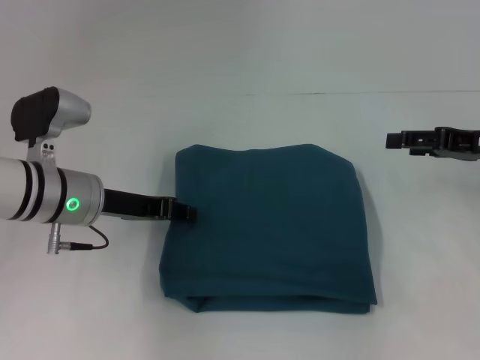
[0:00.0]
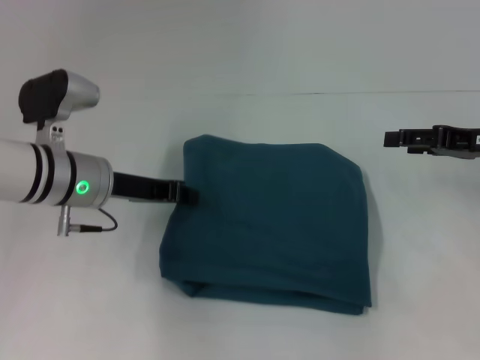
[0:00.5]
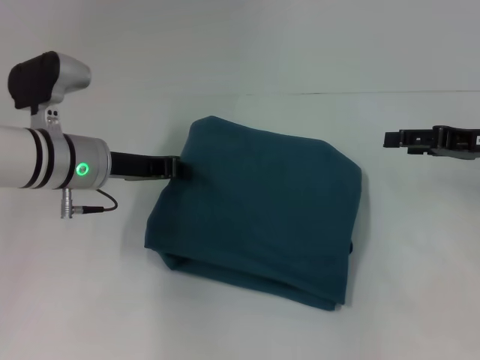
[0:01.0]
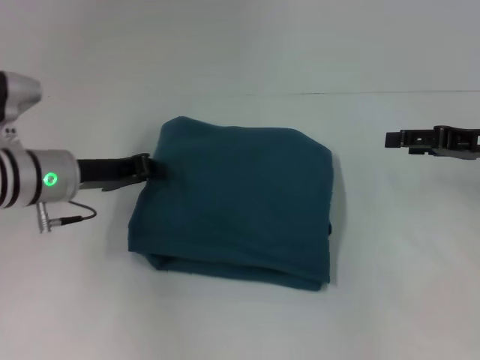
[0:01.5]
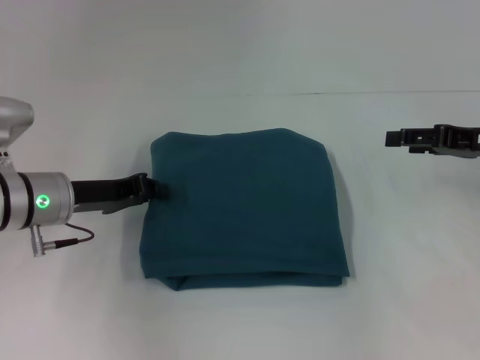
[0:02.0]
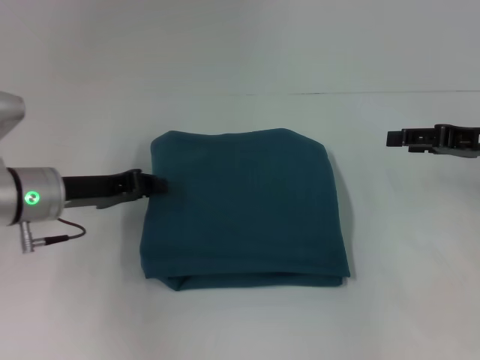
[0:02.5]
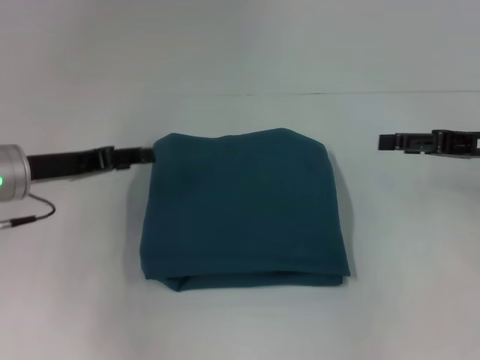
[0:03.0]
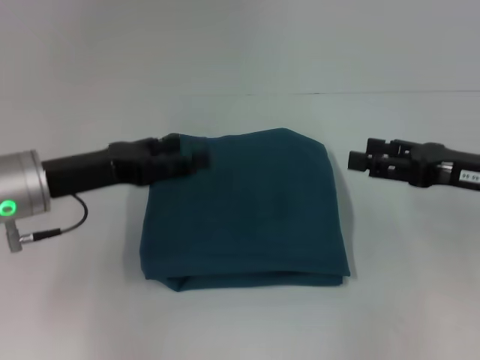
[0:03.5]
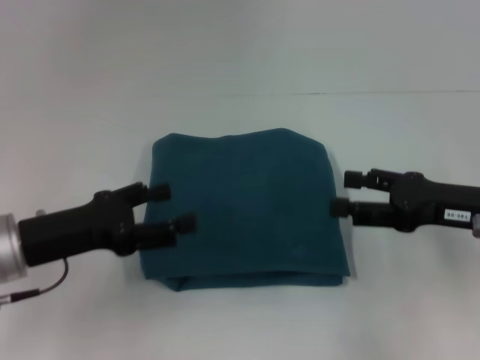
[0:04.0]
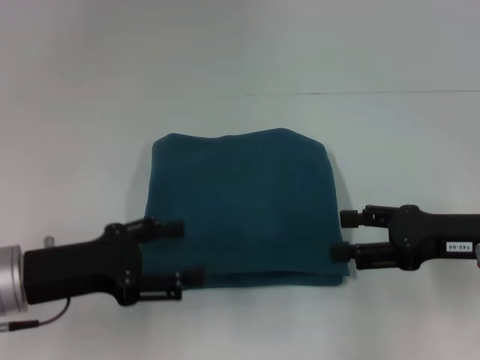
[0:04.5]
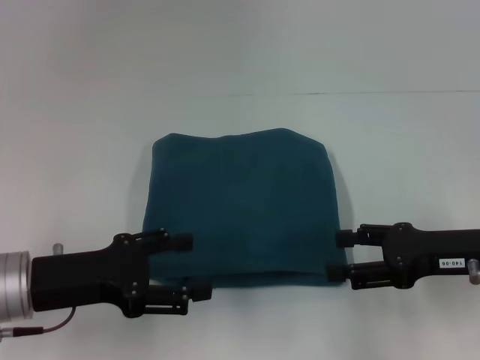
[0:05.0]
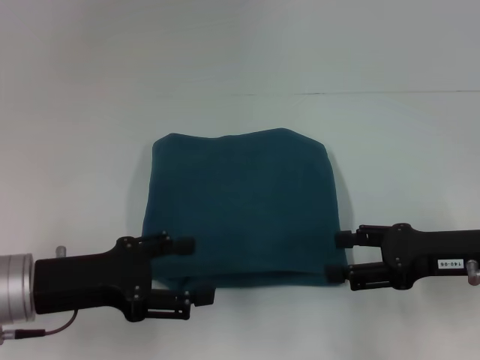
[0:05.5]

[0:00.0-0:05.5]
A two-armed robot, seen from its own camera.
0:00.0 to 0:02.0: There are only small adjustments of the grippers.
0:02.0 to 0:03.5: The left gripper ends up some 5 cm from where it was, and opens its fingers. The right gripper ends up roughly 5 cm from where it was.
0:03.5 to 0:05.5: The right gripper shifts by about 5 cm. Meanwhile the left gripper heads backward, covering approximately 5 cm.

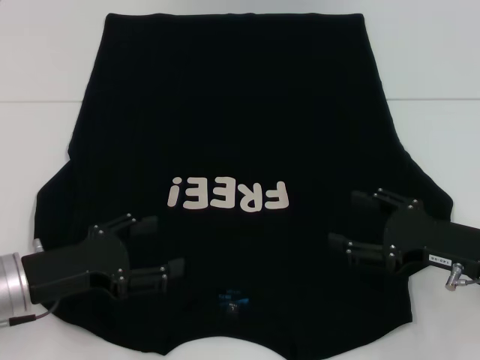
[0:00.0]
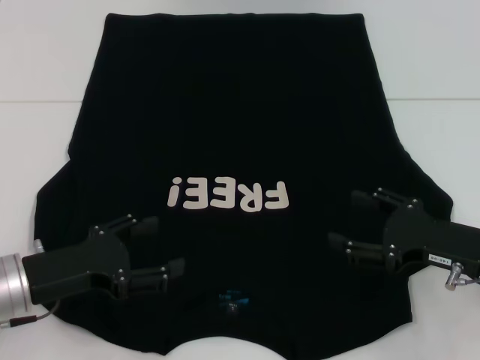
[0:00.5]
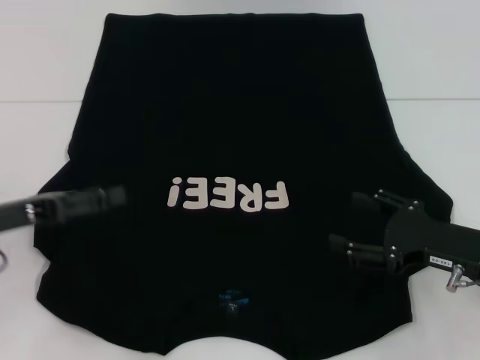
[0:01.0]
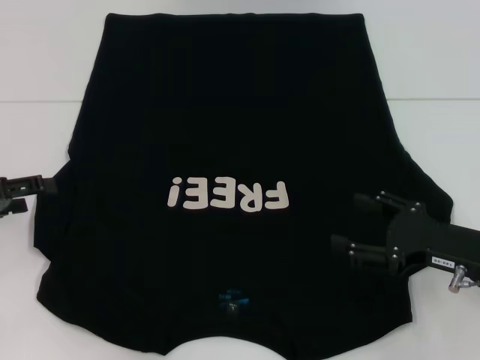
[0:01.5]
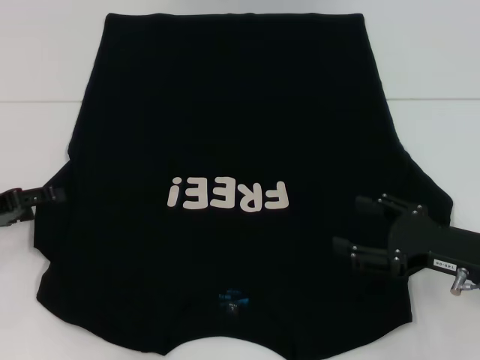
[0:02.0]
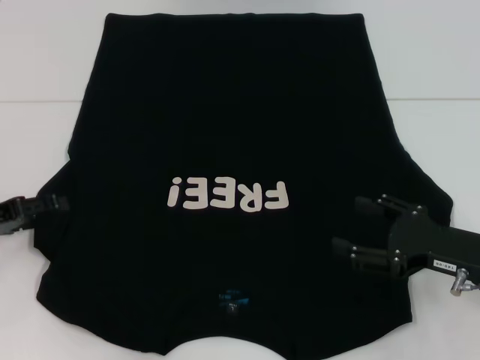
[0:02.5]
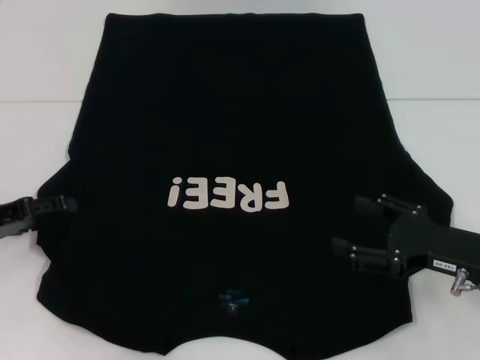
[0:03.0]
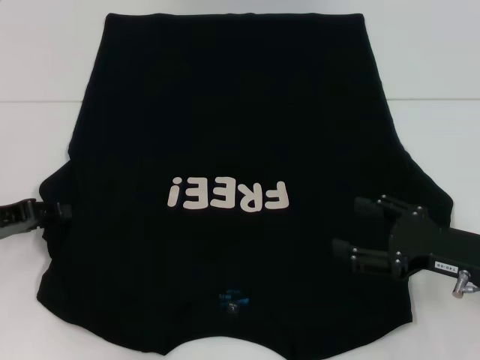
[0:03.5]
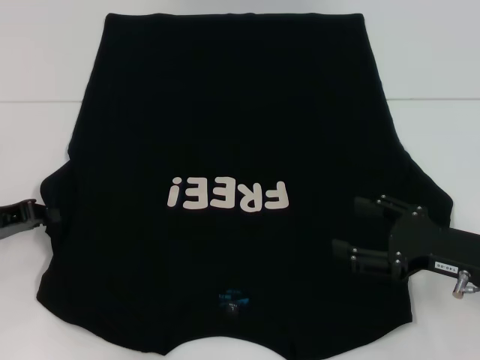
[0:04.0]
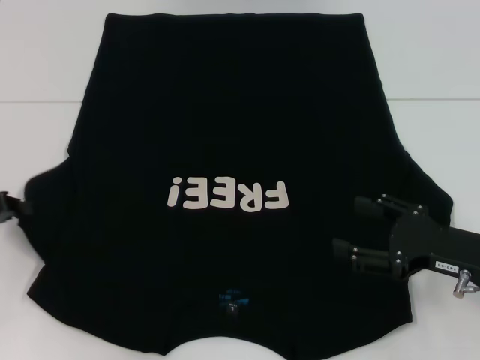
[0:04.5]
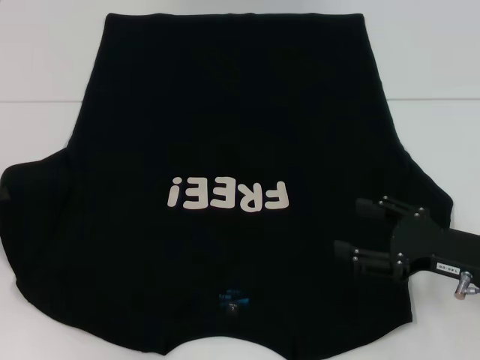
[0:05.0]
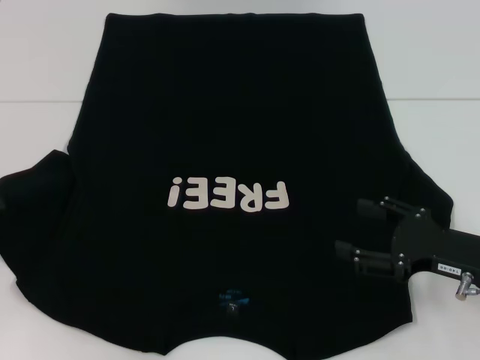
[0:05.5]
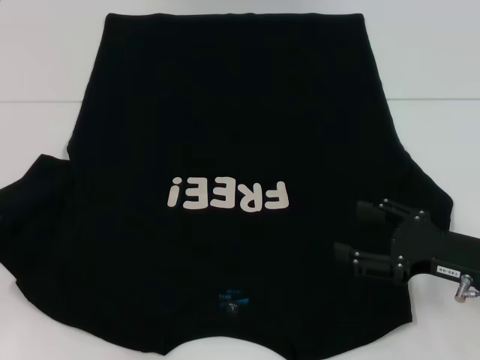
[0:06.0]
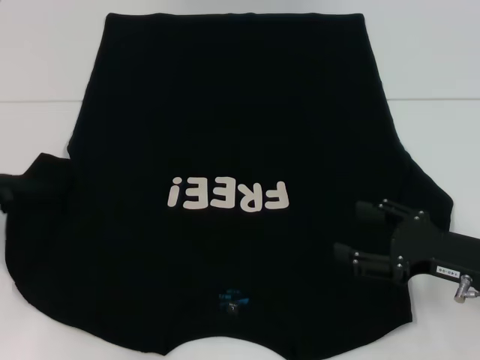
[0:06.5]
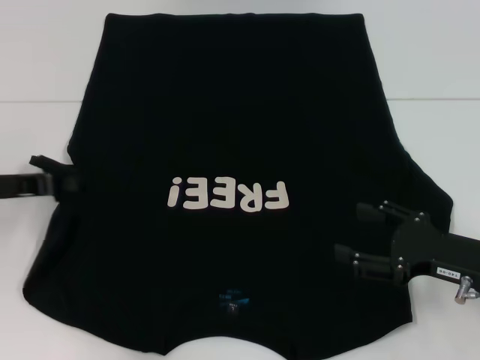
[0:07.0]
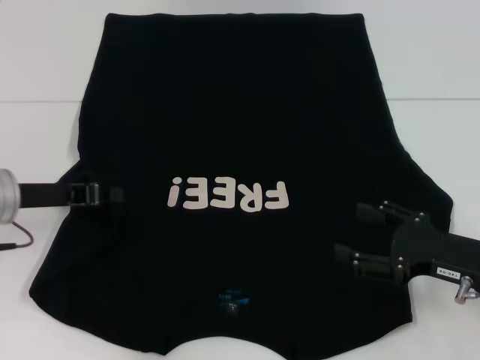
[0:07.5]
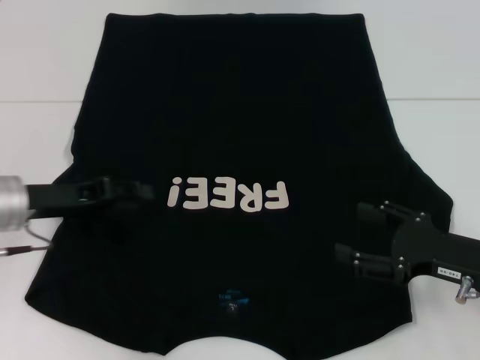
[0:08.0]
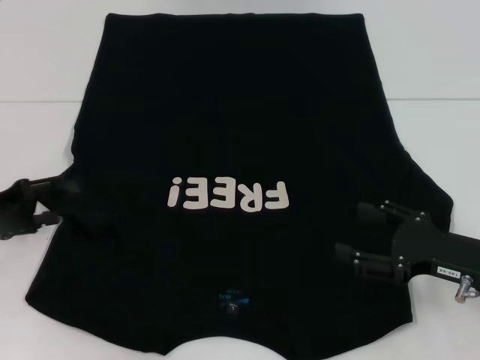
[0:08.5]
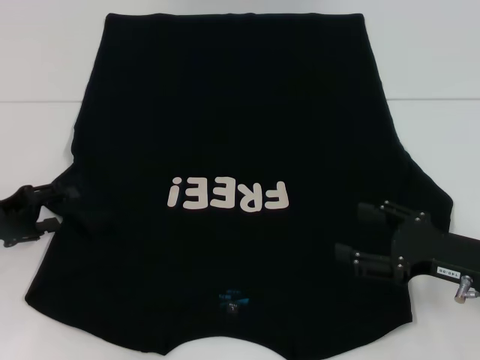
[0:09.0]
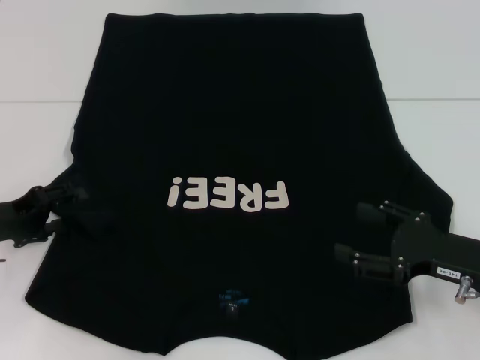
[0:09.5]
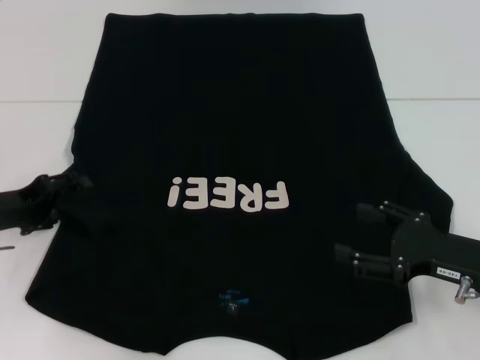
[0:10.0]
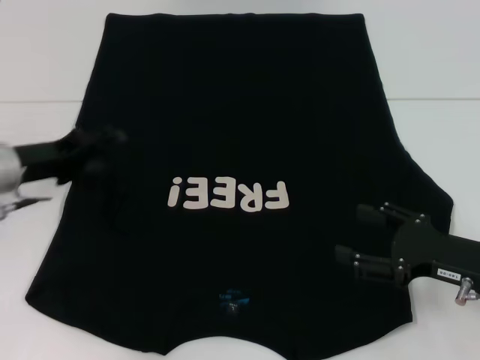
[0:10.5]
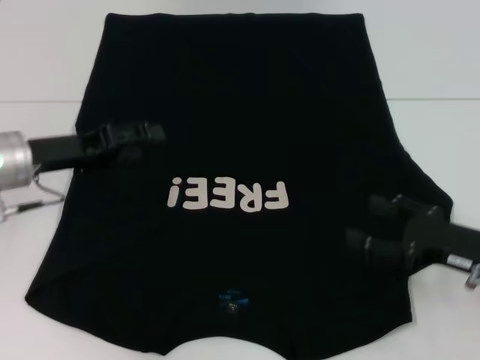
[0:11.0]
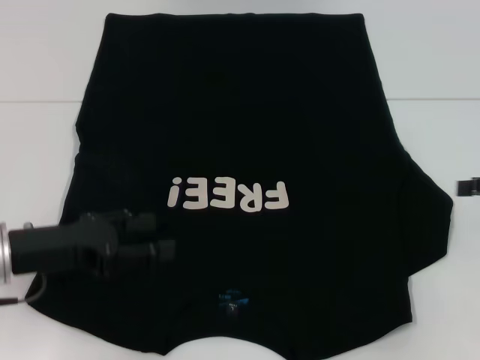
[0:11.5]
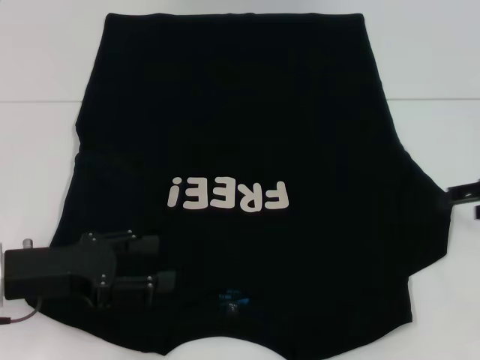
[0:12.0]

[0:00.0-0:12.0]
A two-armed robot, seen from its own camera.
Step, 0:00.0 to 0:11.0: Fold the bottom left sleeve with your left hand.
0:00.0 to 0:02.0: The left gripper moves to the left and forward, some 10 cm.
0:02.0 to 0:04.0: The left gripper closes its fingers.
0:04.0 to 0:06.0: The left gripper moves roughly 5 cm.
0:06.0 to 0:08.0: The left gripper moves to the right, approximately 10 cm.
0:08.0 to 0:10.0: The left gripper travels to the left by approximately 5 cm, and opens.
0:10.0 to 0:12.0: The right gripper heads forward, upward and to the right, covering some 15 cm, while the left gripper travels backward and to the right by about 10 cm.

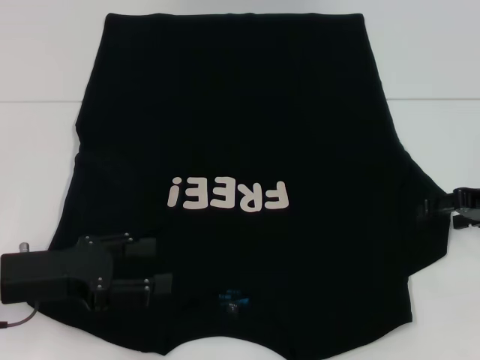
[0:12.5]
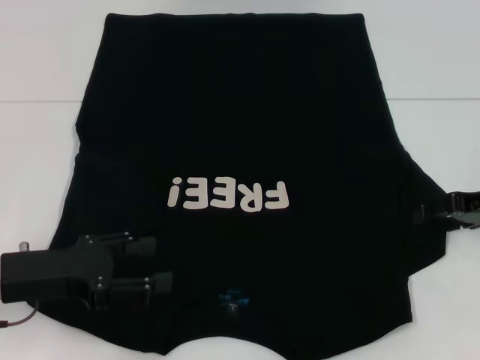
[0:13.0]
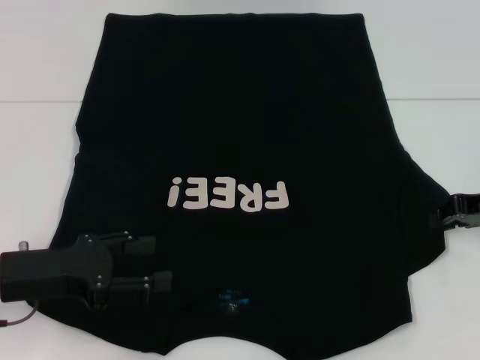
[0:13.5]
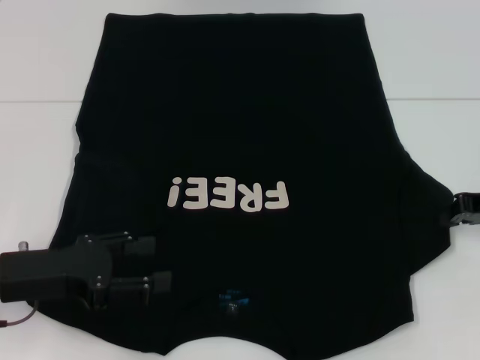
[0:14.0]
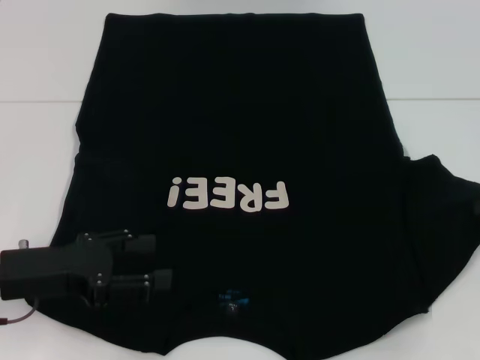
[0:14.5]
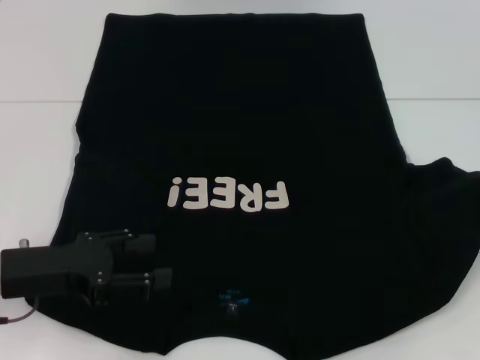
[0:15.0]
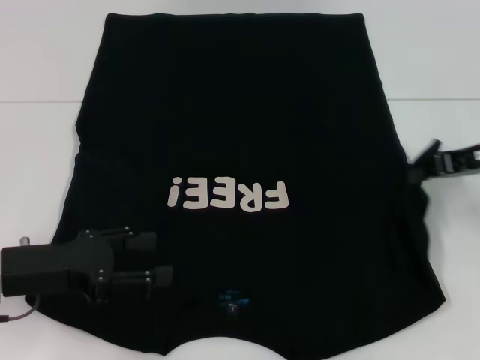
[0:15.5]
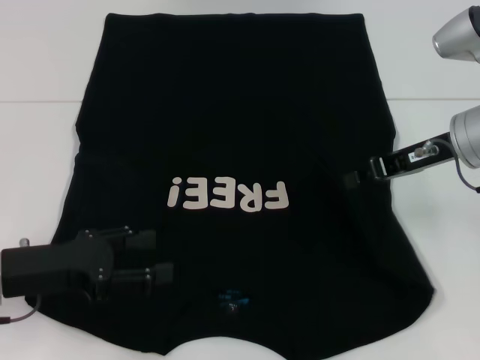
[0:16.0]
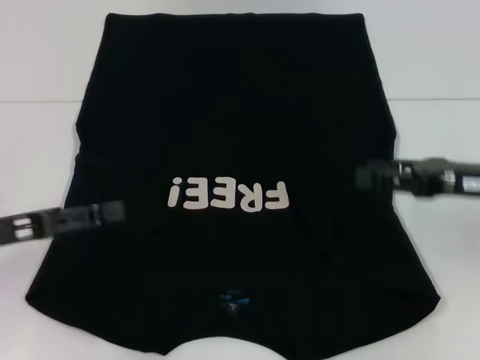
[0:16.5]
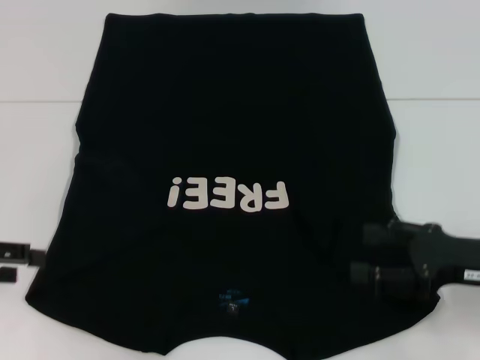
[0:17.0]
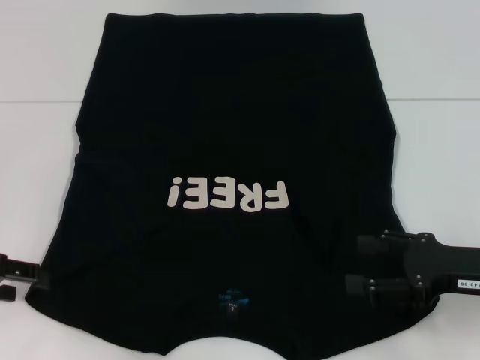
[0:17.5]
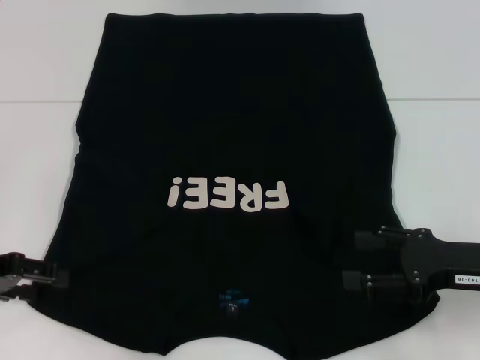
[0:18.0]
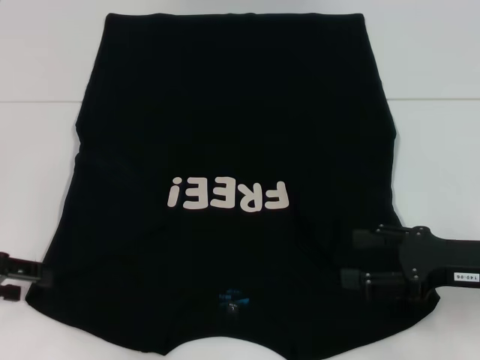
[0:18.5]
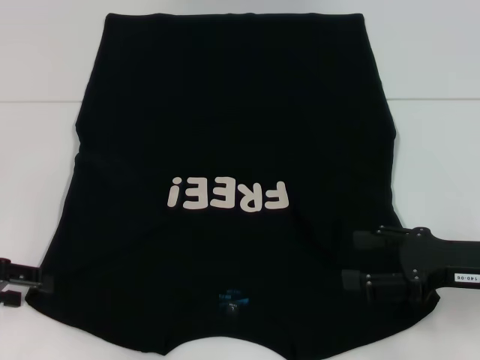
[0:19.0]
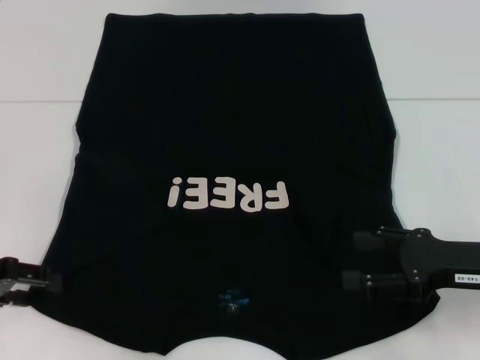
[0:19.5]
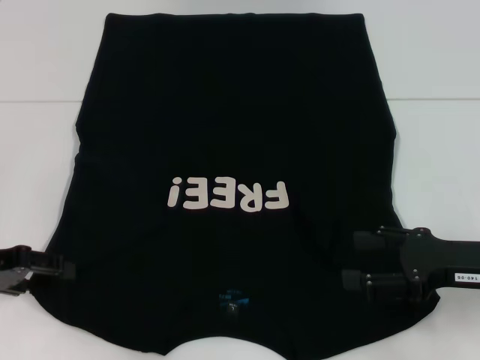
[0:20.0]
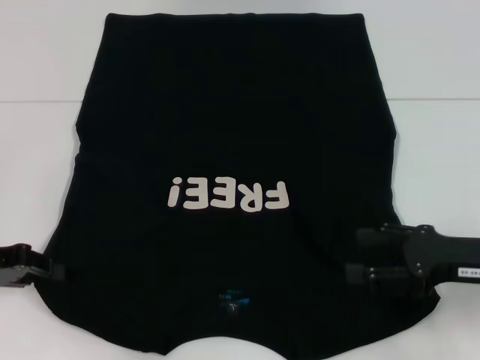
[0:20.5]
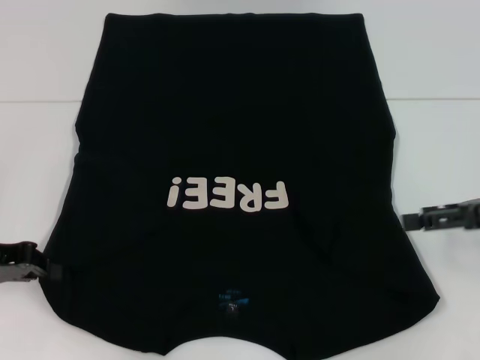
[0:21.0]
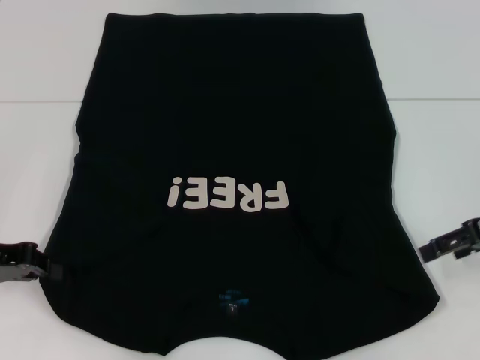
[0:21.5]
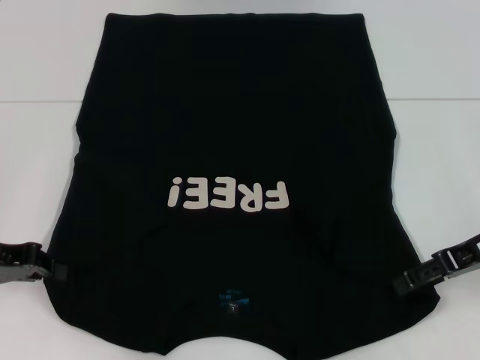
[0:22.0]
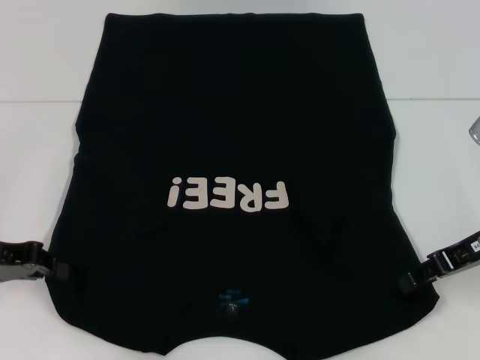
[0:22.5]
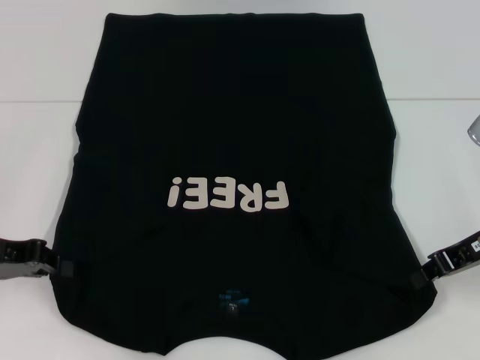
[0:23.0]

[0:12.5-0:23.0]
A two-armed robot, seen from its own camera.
Step, 0:12.5 to 0:16.0: Fold the bottom right sleeve with your right hand.
Step, 0:16.5 to 0:21.0: Grab the bottom left corner with your left hand.
0:12.5 to 0:14.5: The right gripper closes its fingers.
0:14.5 to 0:16.5: The right gripper moves to the left, about 5 cm, and opens its fingers.
0:16.5 to 0:19.0: The left gripper shifts some 5 cm to the left, while the right gripper travels backward by some 5 cm, and opens.
0:19.0 to 0:21.0: The right gripper shifts some 5 cm upward. Meanwhile the left gripper closes.
0:21.0 to 0:23.0: The right gripper moves approximately 5 cm, and closes up.
